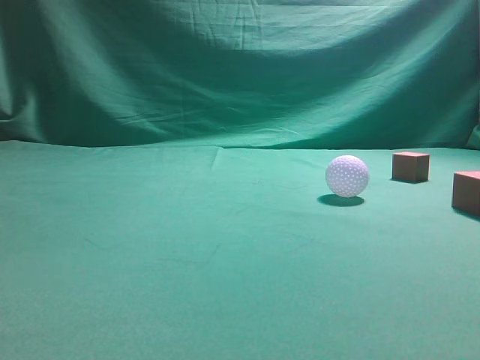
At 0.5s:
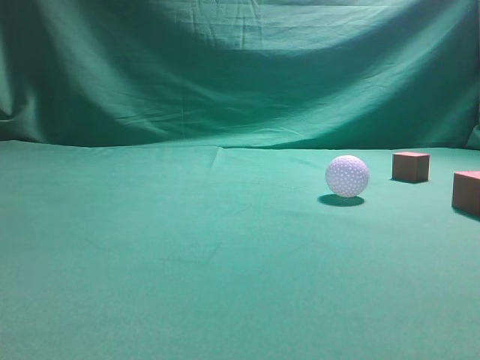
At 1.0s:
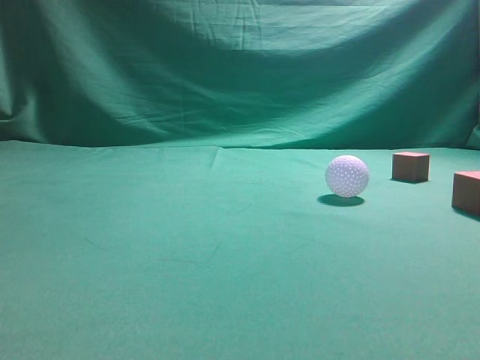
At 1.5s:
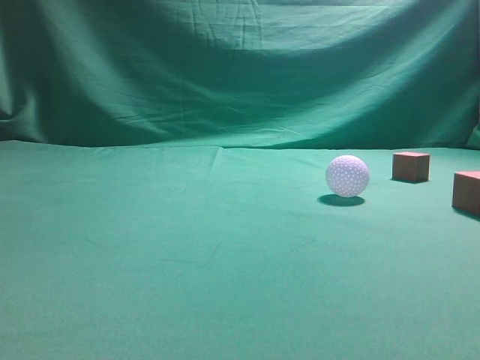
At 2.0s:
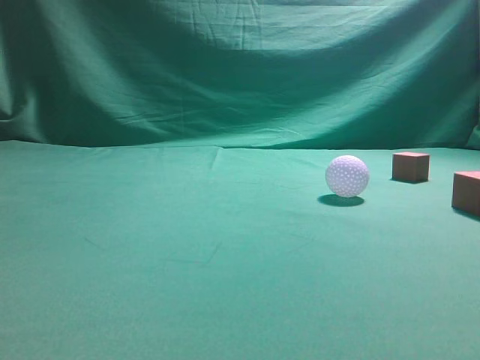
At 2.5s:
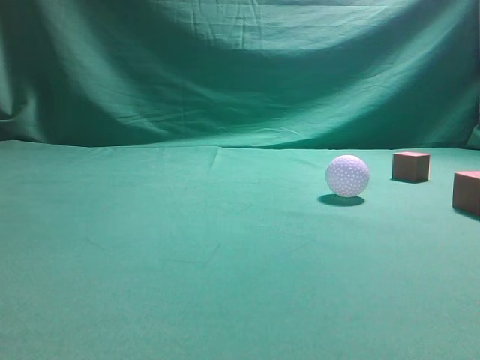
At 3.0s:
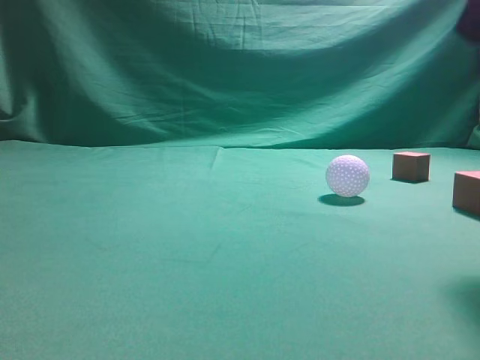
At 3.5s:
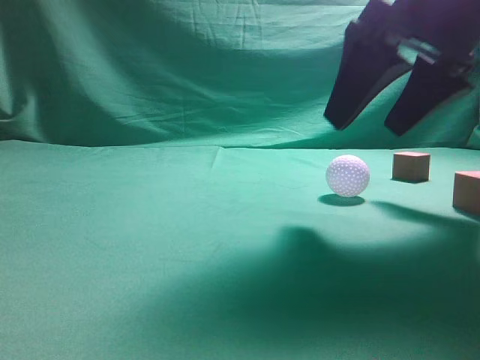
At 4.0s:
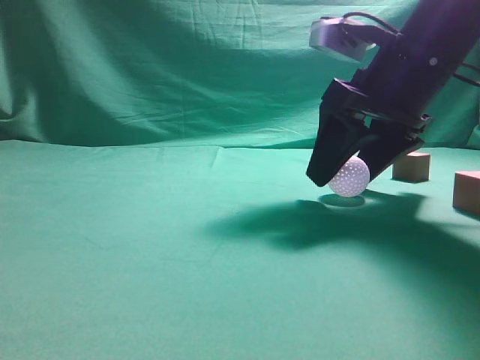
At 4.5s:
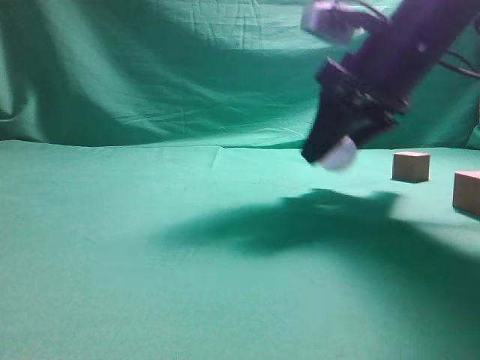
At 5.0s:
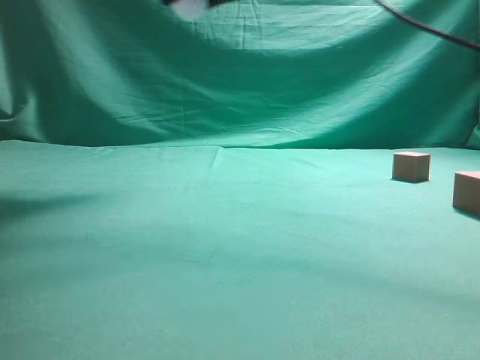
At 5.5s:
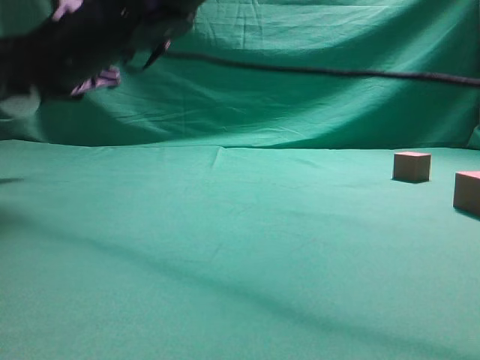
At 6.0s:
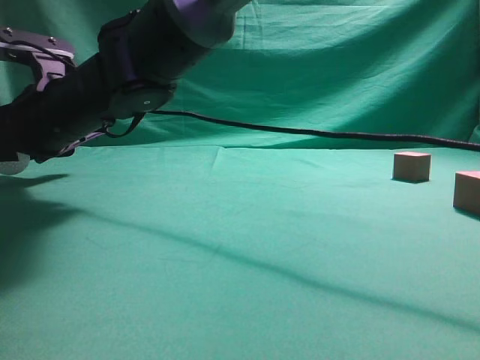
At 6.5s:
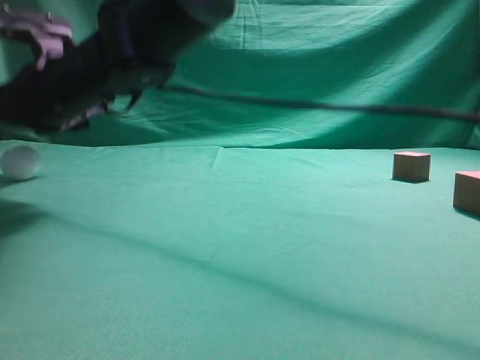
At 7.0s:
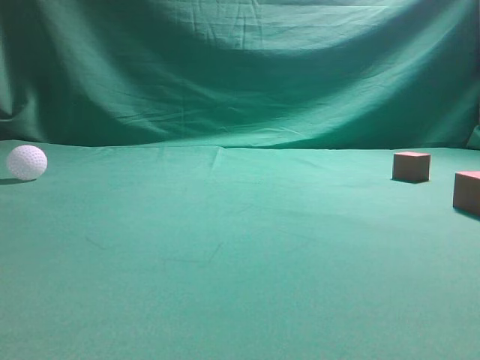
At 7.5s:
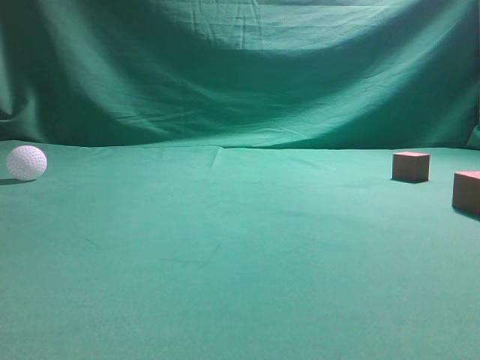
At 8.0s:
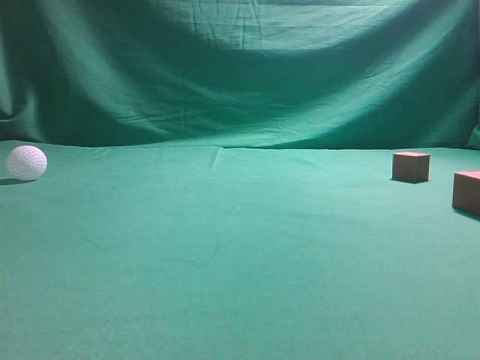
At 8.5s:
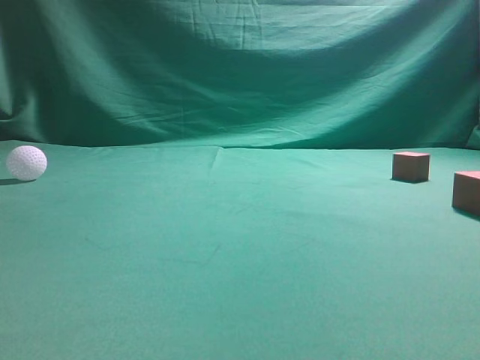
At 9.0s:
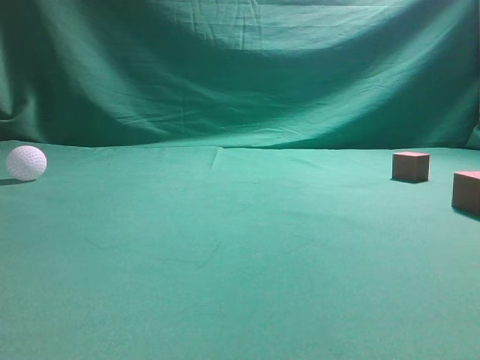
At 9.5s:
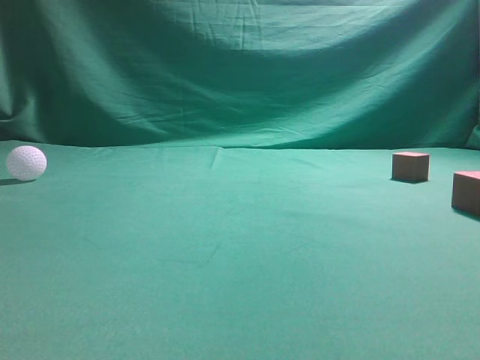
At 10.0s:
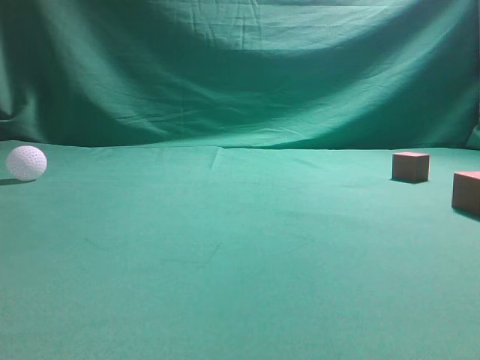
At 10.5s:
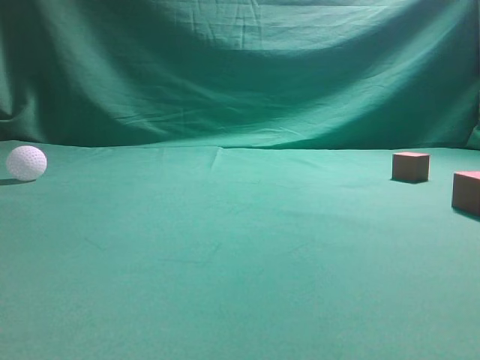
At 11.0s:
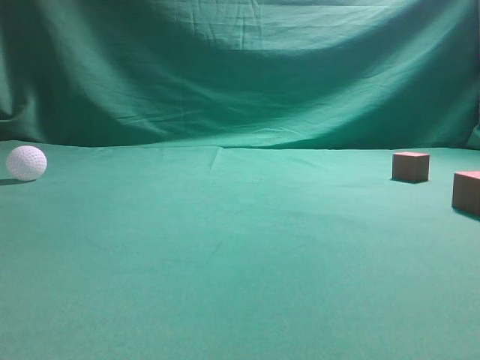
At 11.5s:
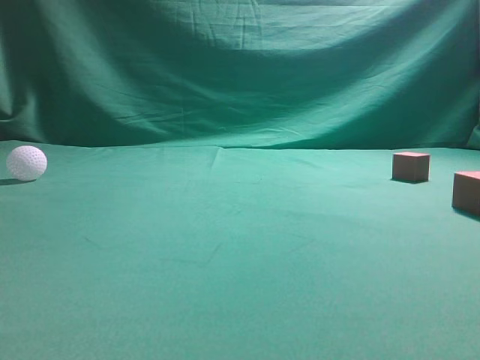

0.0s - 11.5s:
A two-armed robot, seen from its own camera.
Step, 0.0s - 4.5s: Grasp the spherical object on the right side.
2.0s - 4.0s: The right gripper shifts some 30 cm forward, downward and to the left, and opens.
4.0s - 6.0s: The right gripper moves to the left, approximately 30 cm, and opens up.
6.0s - 7.5s: The right gripper shifts some 50 cm upward and to the right, and closes up.
